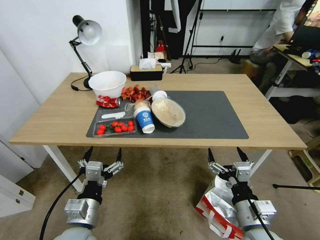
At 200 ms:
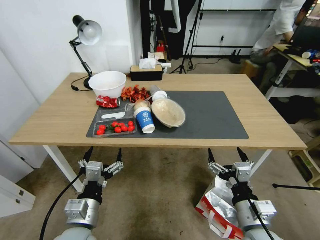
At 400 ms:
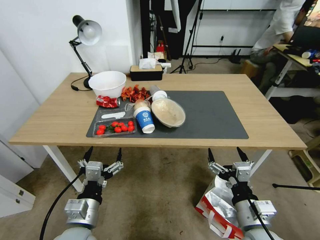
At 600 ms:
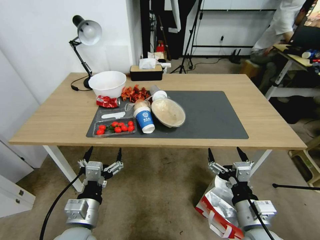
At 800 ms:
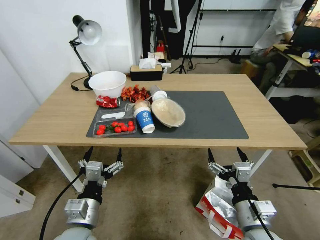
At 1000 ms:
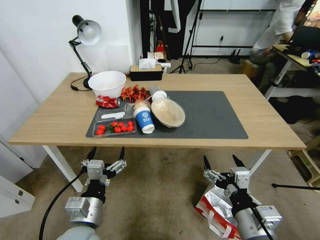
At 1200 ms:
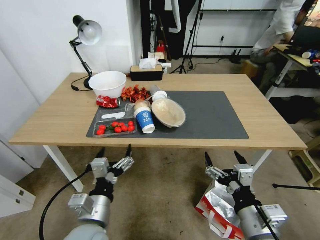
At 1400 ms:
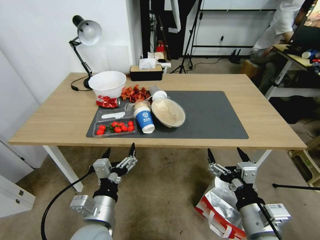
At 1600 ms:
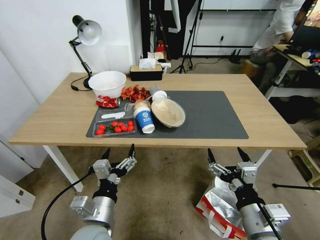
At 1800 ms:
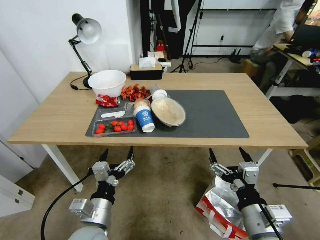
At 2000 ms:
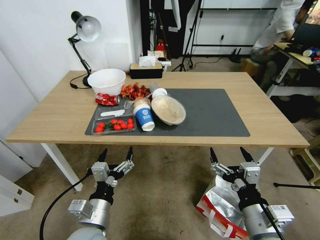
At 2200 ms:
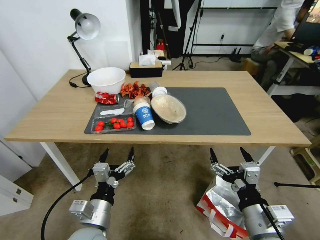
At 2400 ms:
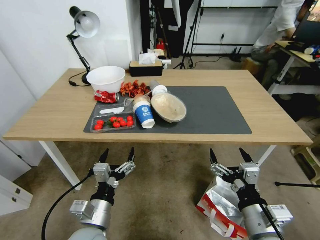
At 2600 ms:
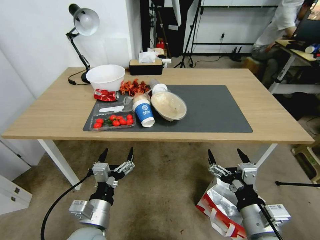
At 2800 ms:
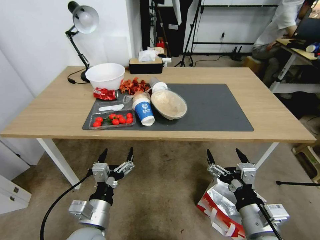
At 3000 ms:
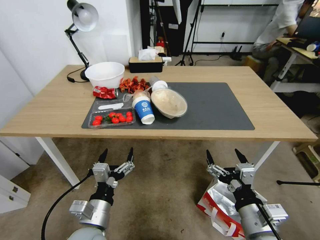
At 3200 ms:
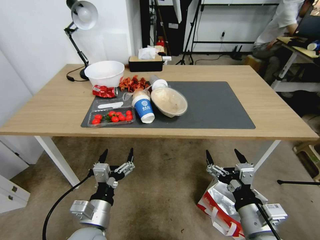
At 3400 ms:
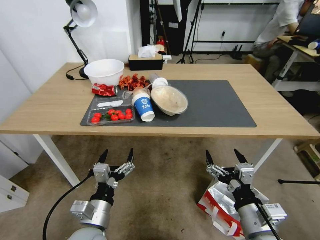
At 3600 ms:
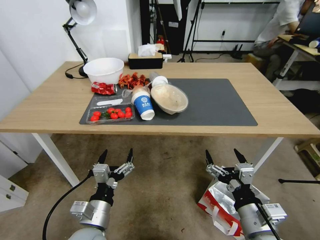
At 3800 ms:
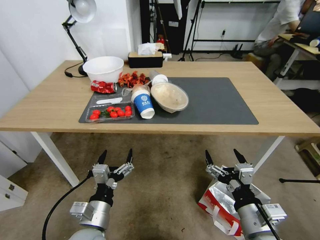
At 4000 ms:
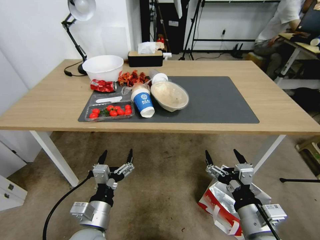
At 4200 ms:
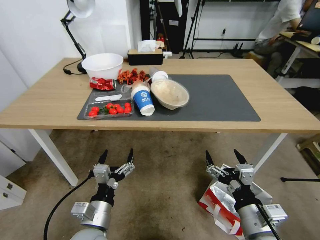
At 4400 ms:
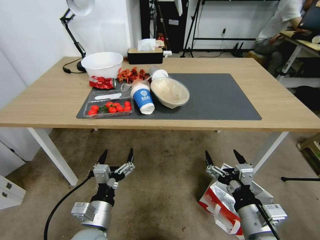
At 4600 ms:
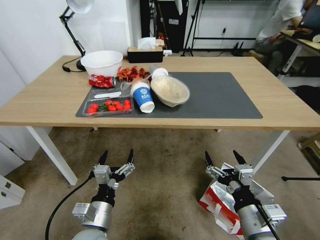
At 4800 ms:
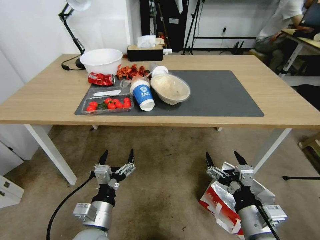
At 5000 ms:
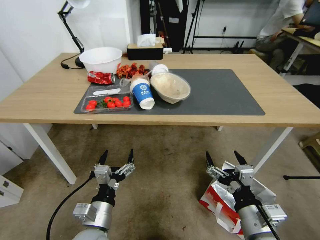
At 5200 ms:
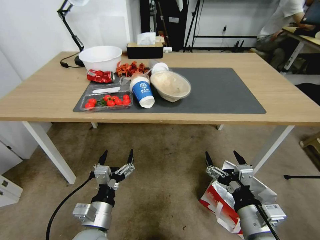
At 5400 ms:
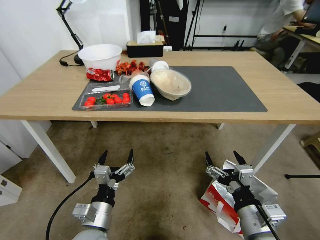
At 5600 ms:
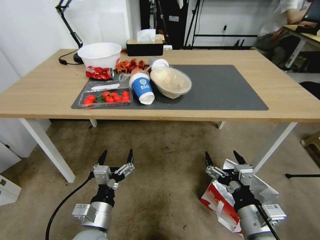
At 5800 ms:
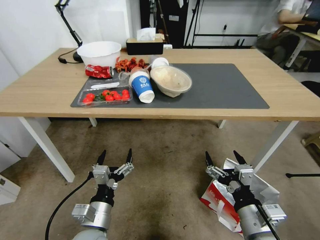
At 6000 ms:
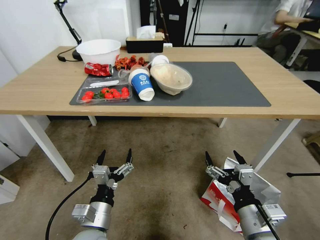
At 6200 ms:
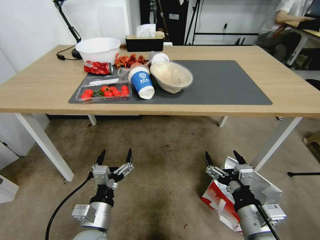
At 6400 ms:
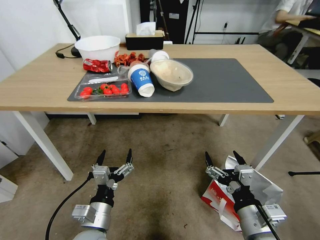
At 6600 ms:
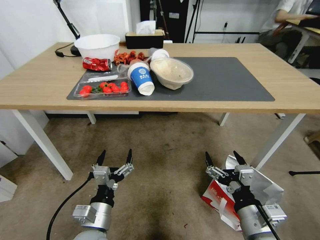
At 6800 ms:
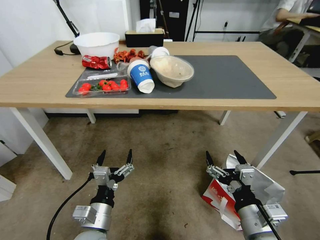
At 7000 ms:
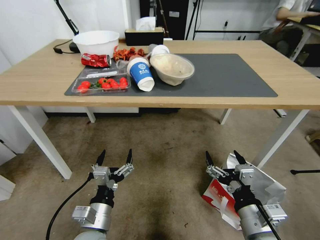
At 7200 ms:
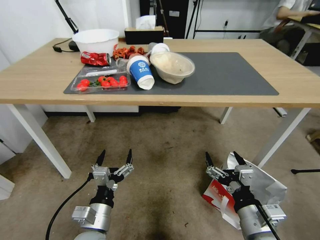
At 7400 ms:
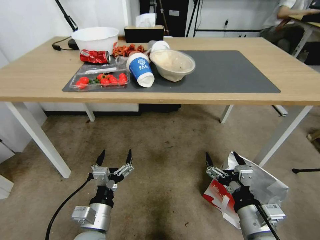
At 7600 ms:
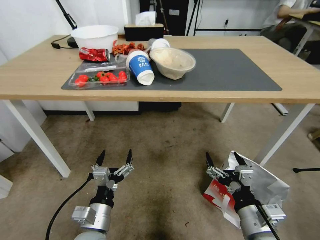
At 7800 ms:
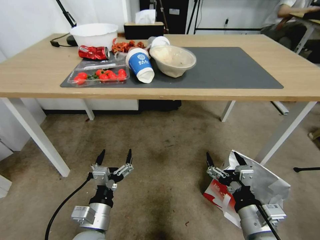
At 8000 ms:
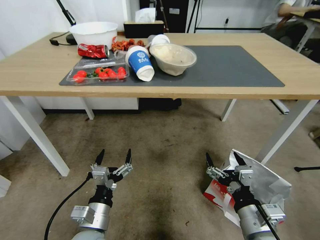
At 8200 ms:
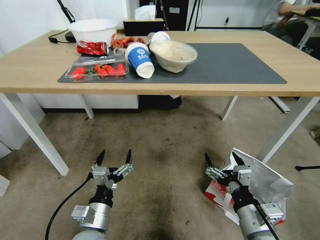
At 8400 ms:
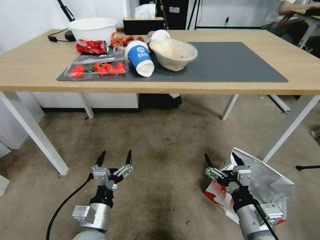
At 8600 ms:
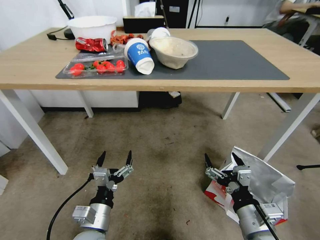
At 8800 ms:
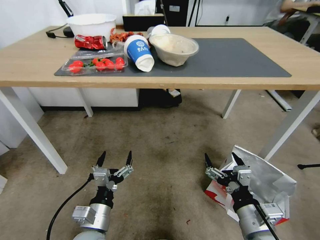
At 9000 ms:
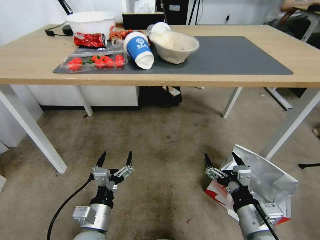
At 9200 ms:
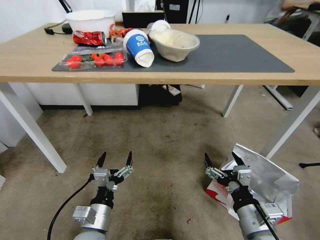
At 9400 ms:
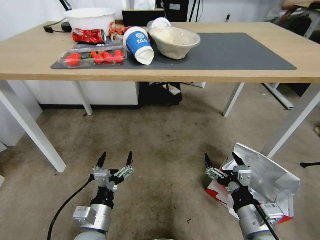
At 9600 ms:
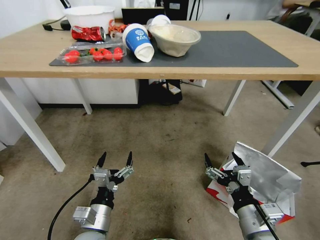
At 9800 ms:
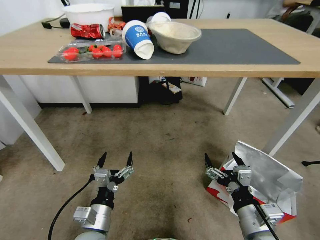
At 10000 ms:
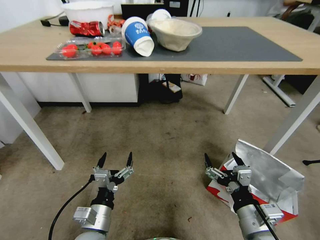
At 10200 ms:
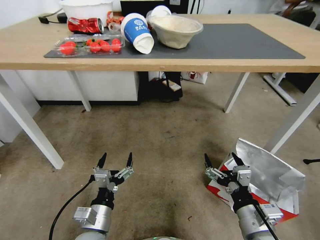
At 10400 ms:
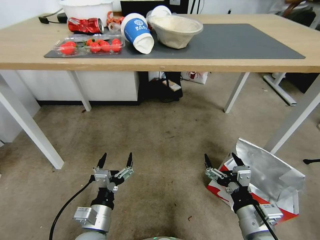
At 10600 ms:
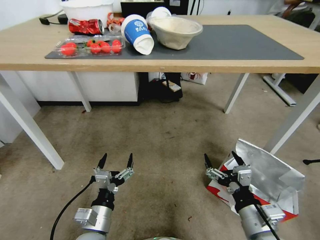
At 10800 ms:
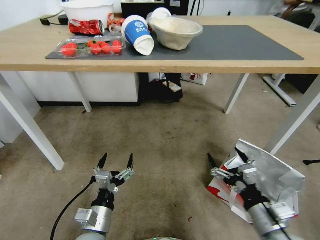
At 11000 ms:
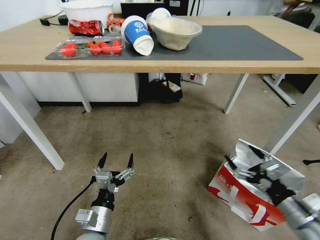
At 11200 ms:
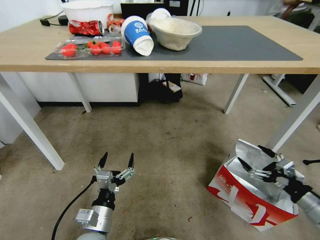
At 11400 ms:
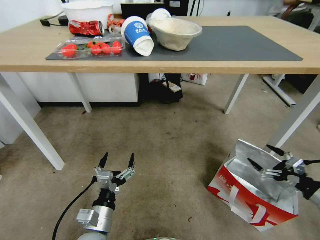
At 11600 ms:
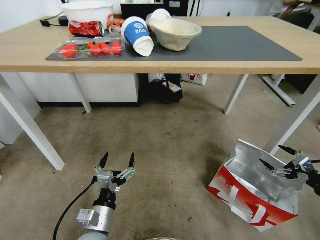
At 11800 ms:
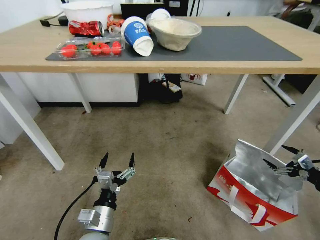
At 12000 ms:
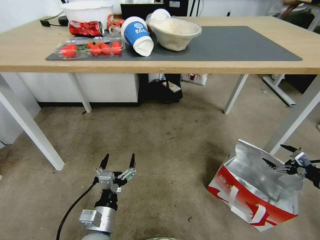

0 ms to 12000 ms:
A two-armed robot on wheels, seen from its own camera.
Task of the whole recording: Pick up the food delivery bag from the floor and place it on the table.
10400 ms to 12000 ms: The right gripper moves to the right, about 35 cm.

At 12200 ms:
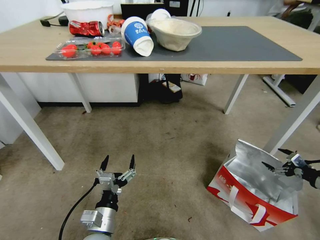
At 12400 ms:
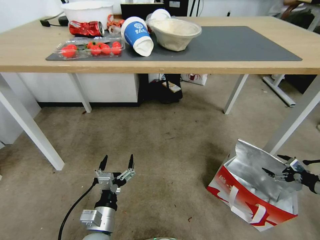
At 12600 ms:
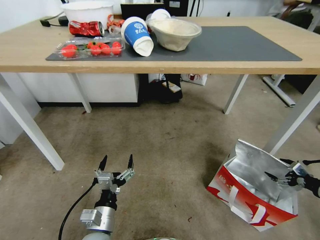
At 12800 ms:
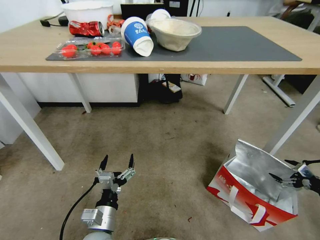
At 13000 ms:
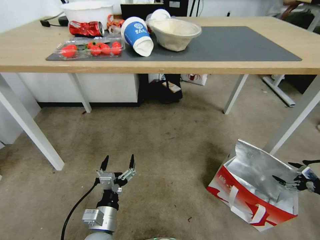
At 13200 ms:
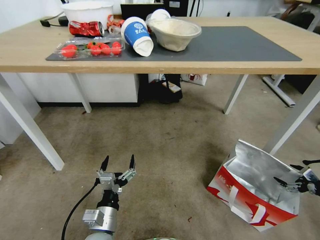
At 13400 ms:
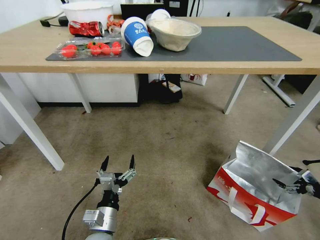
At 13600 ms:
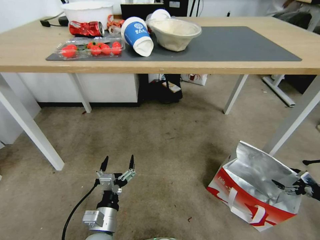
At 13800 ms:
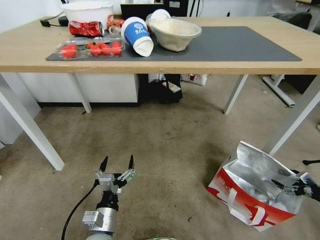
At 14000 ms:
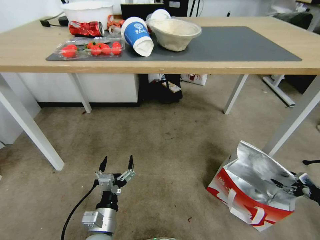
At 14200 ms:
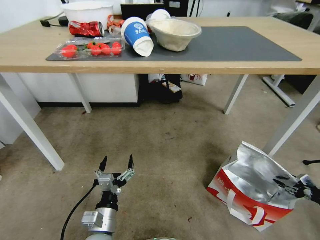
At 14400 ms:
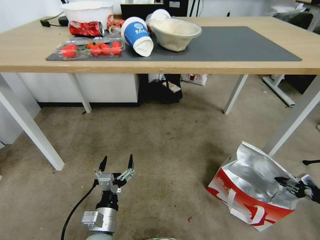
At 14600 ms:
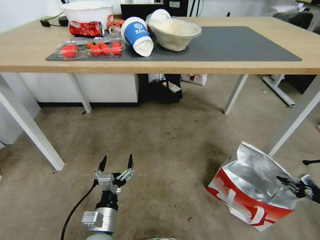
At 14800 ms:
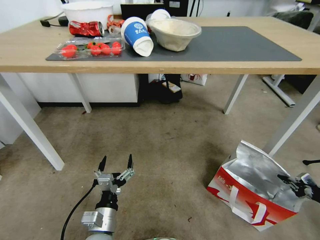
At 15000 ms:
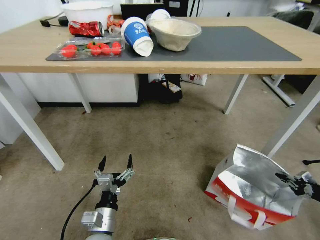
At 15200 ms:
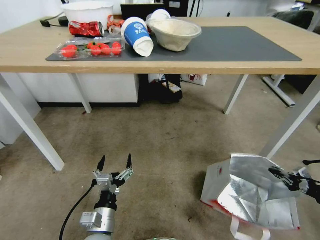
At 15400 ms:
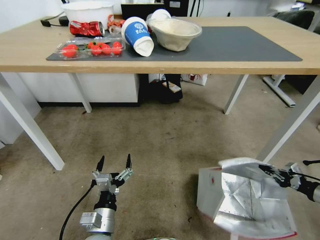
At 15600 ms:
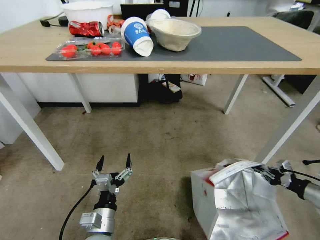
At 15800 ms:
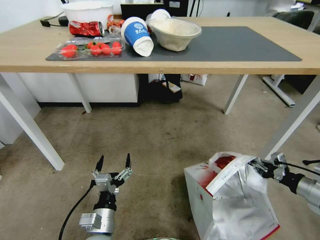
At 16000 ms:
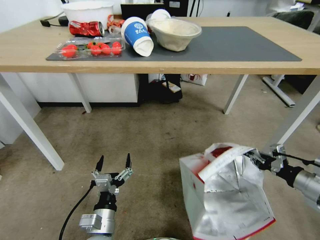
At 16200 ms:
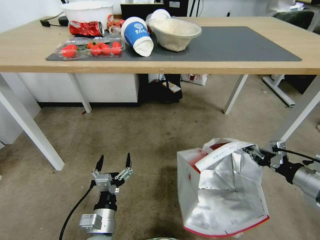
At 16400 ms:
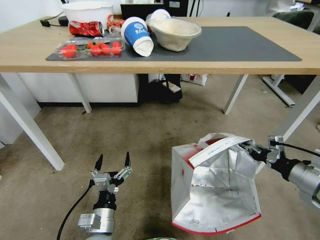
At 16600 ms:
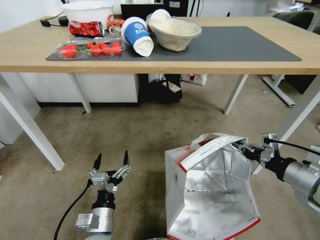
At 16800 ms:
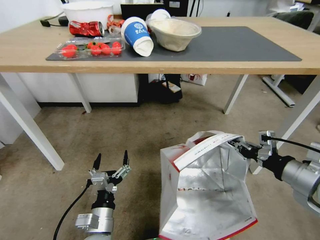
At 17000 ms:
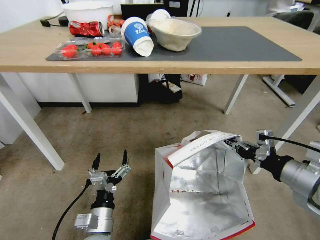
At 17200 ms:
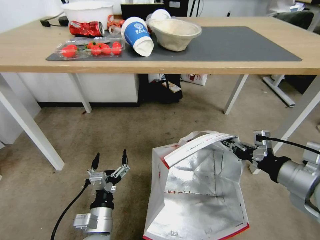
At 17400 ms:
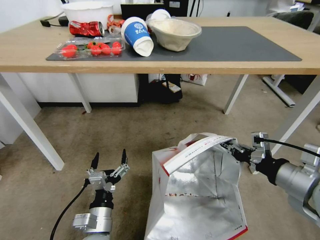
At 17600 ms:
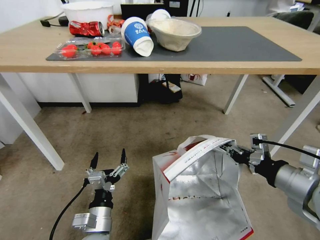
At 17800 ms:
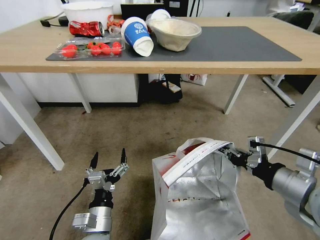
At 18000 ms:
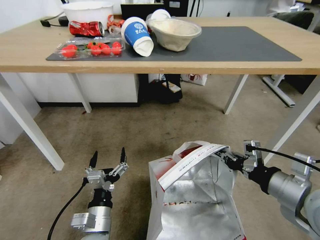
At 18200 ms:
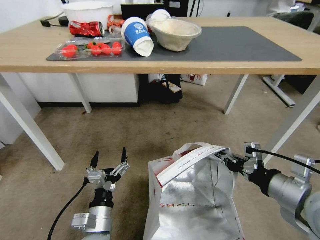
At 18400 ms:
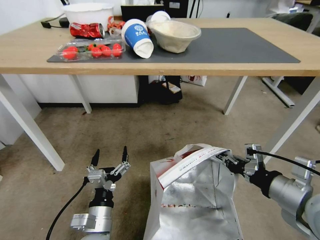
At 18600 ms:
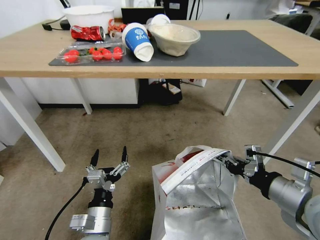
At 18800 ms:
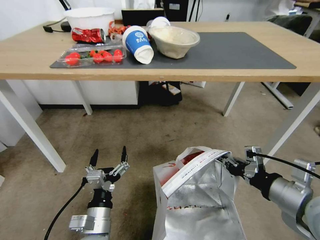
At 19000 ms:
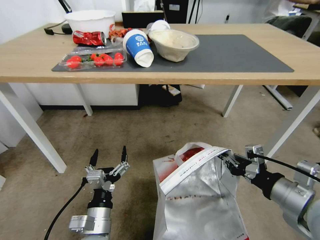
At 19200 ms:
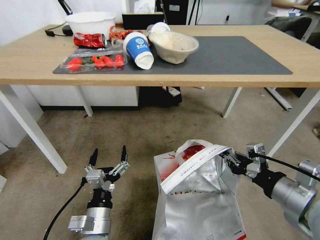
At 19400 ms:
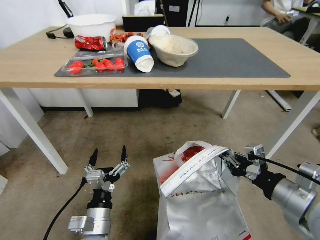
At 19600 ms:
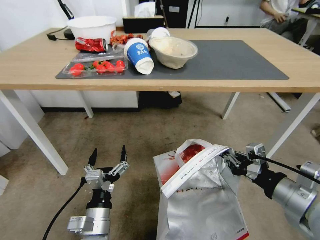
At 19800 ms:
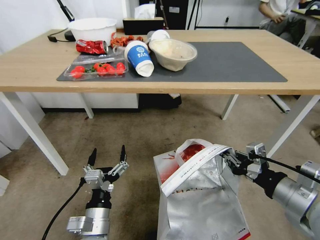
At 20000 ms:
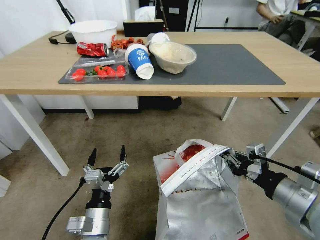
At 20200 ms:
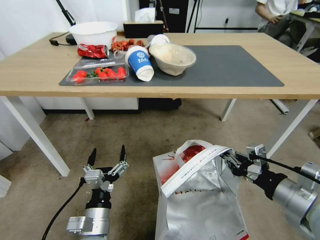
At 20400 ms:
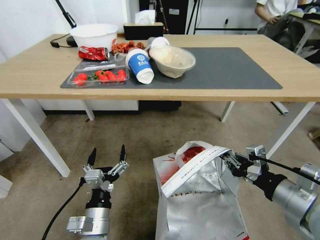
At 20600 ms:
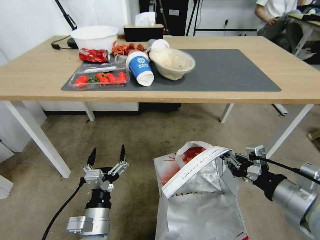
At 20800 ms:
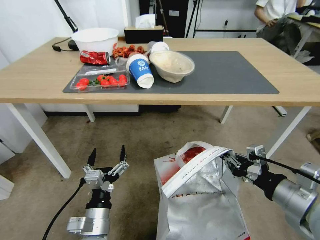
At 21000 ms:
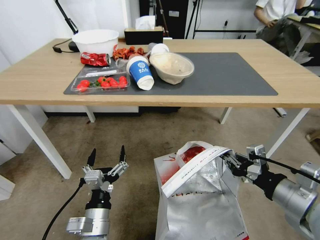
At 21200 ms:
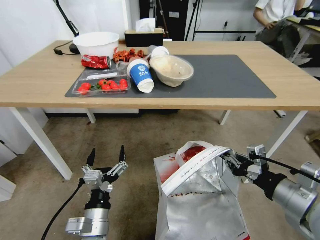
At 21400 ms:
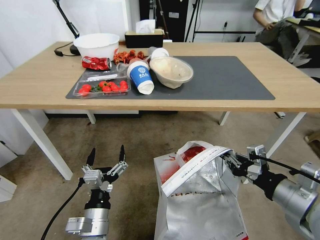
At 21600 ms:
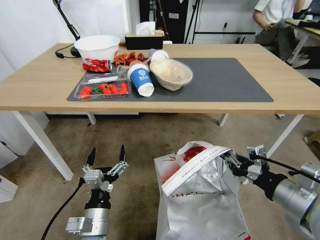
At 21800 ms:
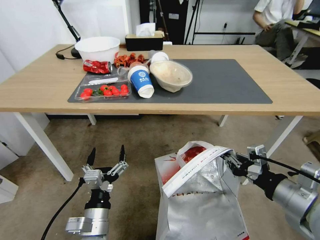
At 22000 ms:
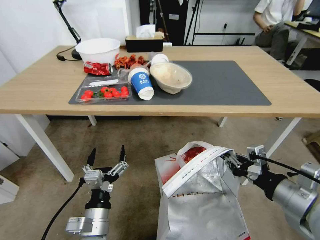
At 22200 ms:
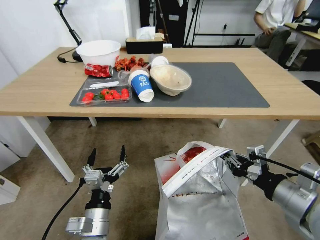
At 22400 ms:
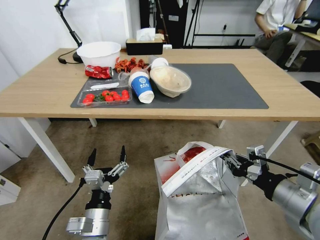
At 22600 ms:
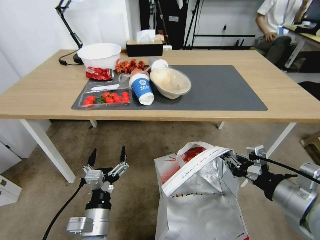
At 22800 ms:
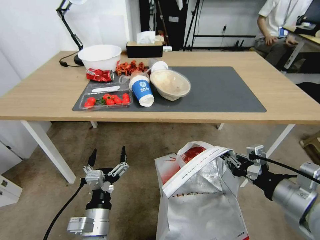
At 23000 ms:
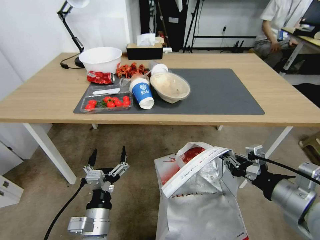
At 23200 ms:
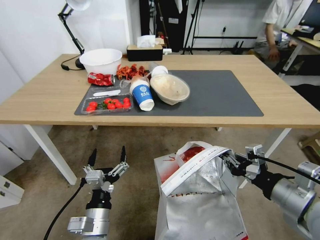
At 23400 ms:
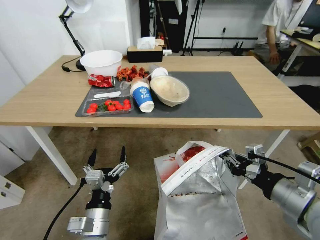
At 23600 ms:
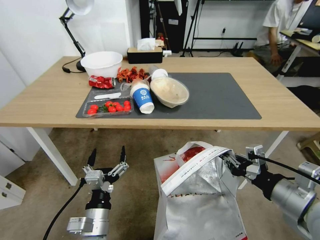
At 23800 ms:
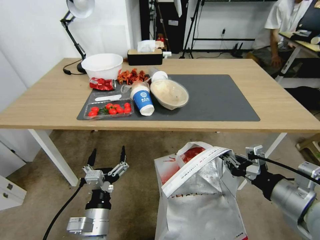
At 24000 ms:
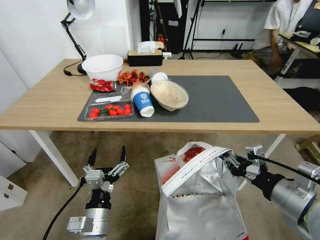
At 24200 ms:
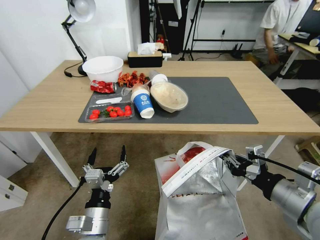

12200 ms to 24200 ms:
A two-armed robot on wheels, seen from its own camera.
Task of the whole recording: Pick up the food delivery bag from the floor and place it on the table.
12200 ms to 13800 ms: The right gripper moves downward, about 5 cm.
13800 ms to 15200 ms: The right gripper closes.
15200 ms to 16600 ms: The right gripper heads to the left and upward, covering approximately 30 cm.
16600 ms to 18200 ms: The right gripper moves to the left, about 5 cm.
